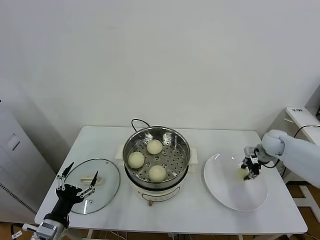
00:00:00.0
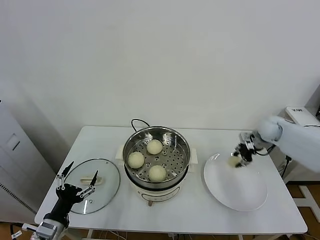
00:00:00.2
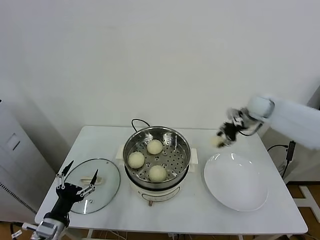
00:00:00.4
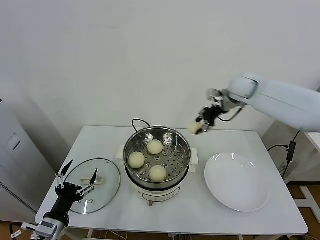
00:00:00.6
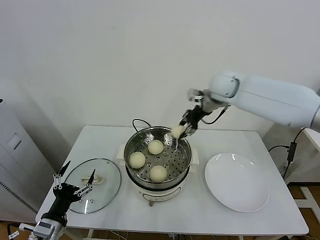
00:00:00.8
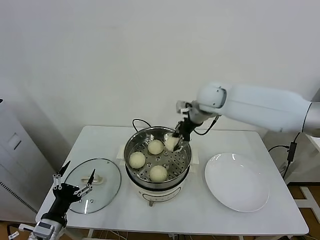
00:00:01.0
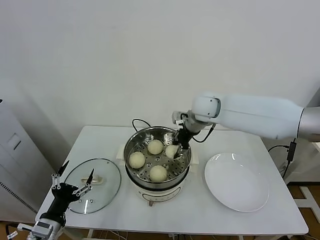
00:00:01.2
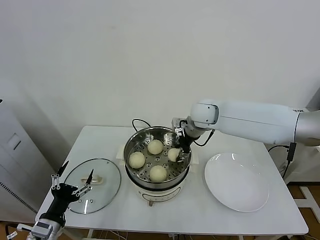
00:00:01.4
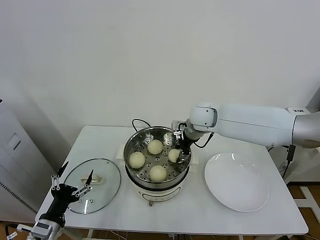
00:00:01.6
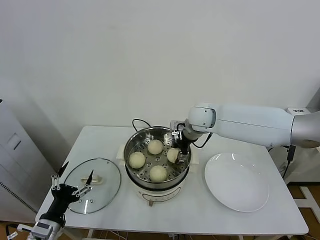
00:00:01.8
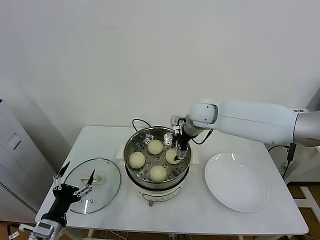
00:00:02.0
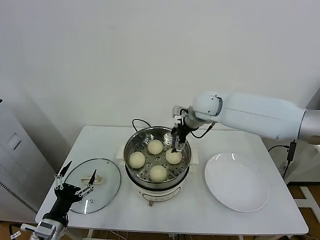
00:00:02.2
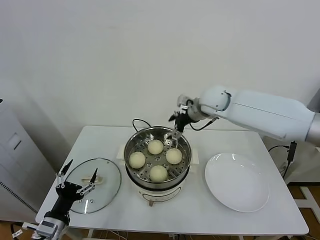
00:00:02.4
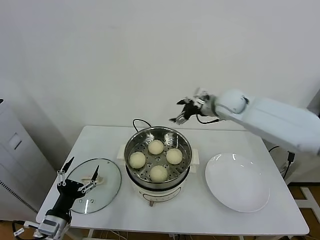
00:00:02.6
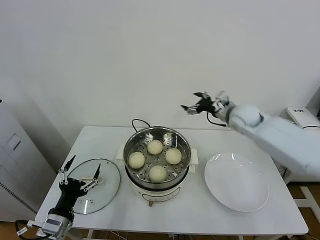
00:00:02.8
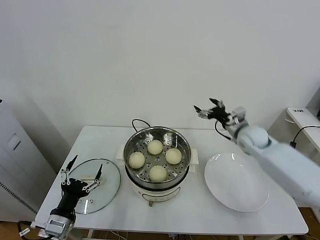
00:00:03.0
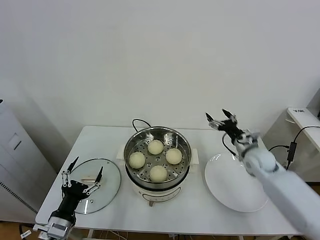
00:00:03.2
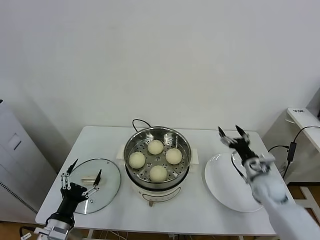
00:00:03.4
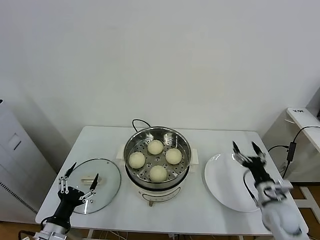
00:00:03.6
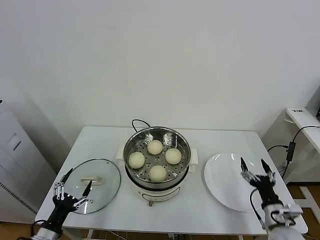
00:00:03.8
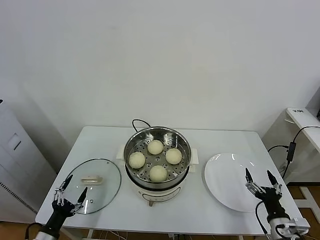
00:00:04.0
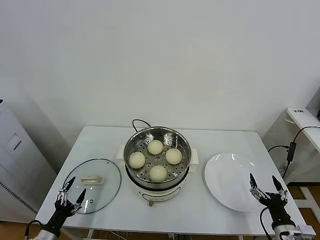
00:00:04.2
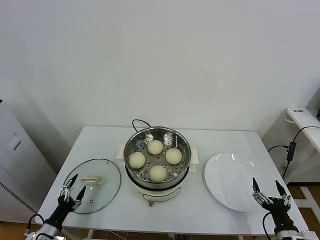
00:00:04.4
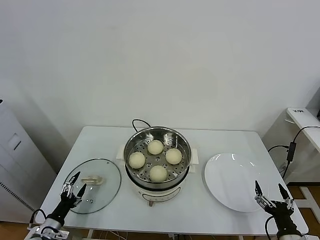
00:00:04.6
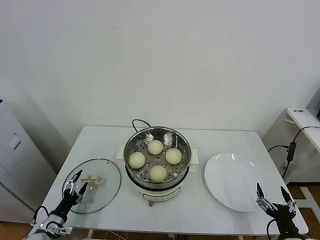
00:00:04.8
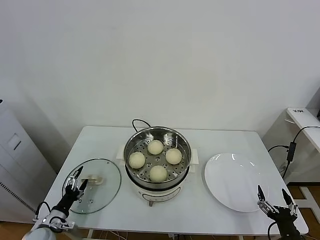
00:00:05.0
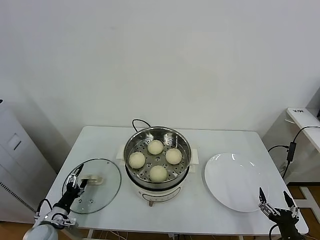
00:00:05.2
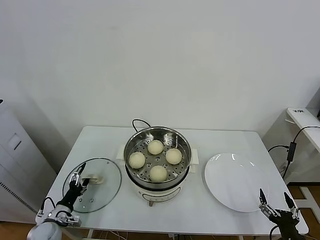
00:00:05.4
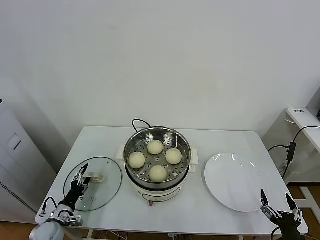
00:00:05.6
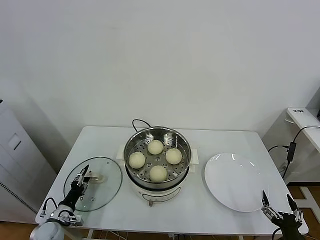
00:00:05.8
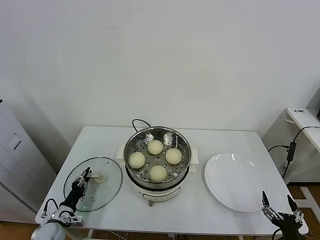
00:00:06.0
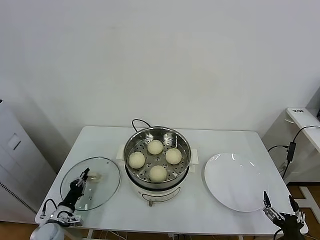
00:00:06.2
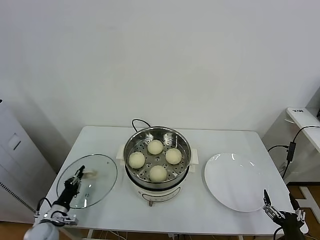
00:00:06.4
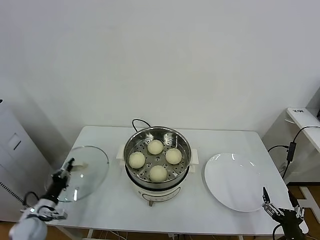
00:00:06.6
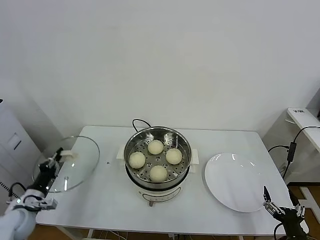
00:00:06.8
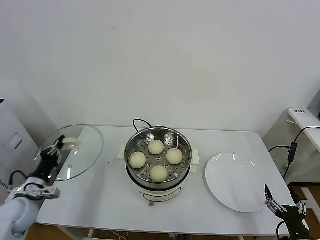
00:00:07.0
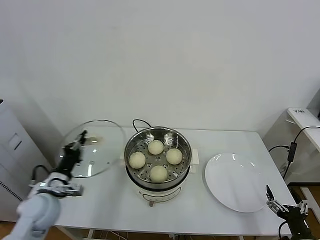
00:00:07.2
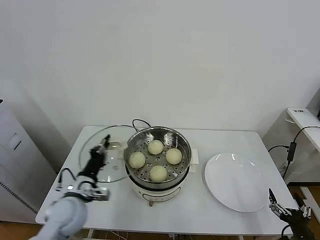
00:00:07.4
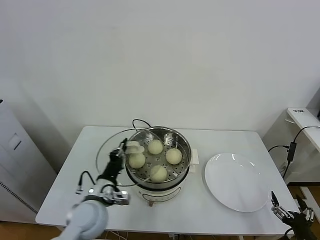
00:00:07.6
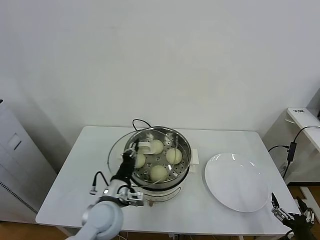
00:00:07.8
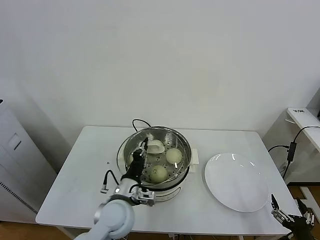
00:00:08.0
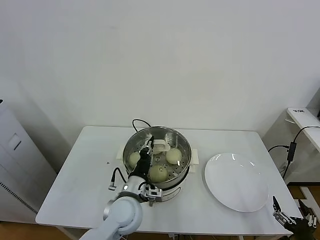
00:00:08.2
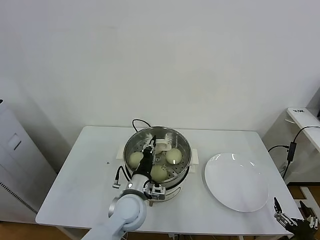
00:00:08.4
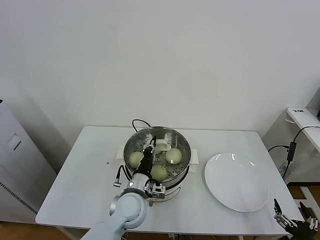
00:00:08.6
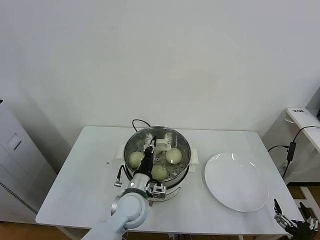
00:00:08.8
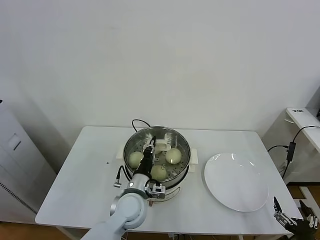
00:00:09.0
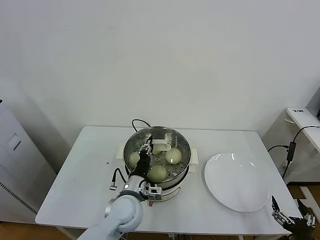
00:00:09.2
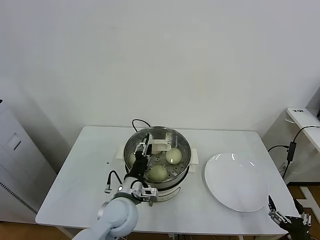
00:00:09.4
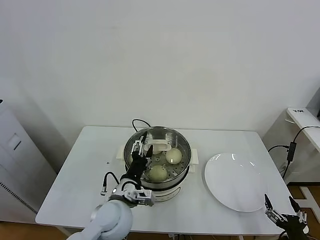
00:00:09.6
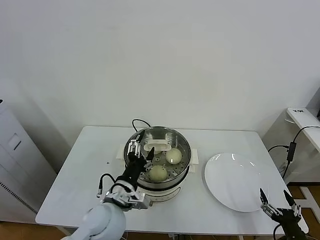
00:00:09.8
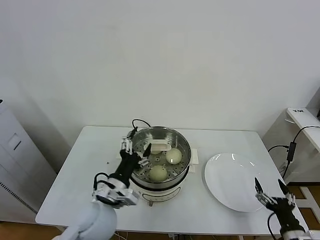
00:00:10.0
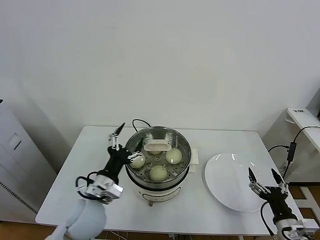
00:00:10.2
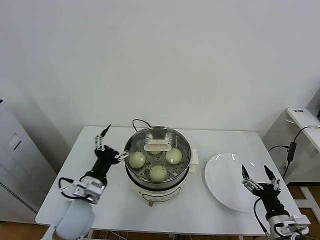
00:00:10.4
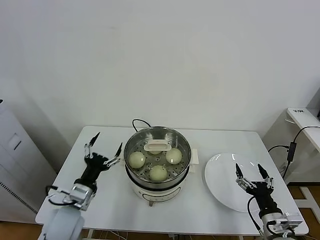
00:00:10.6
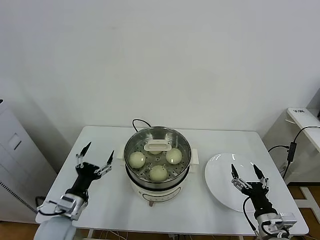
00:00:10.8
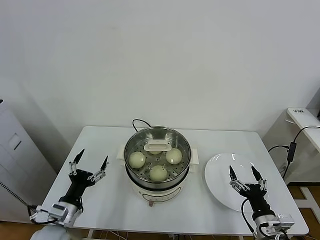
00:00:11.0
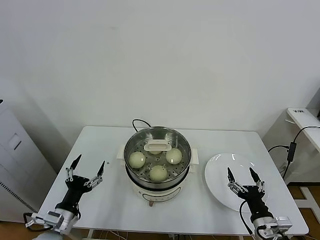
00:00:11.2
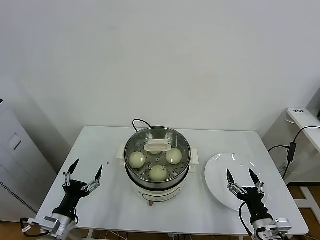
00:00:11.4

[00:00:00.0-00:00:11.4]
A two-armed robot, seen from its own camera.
Task of the whole recording: take steamed baozi put them in steamer.
Step, 00:00:00.0 to 00:00:02.0: Place the baozi on the steamer with right gripper.
Step, 00:00:02.2 to 00:00:06.2: Grasp the pot lid with left gripper.
Step, 00:00:06.4 to 00:00:09.4: Place the pot lid on the steamer with left gripper.
00:00:00.0 to 00:00:01.4: The right gripper heads to the left and upward, covering roughly 35 cm.
00:00:01.4 to 00:00:02.8: The right gripper heads to the right, covering about 15 cm, and opens.
00:00:02.8 to 00:00:04.2: The right gripper moves backward and downward, about 40 cm, while the left gripper goes about 15 cm downward and to the left.
00:00:04.2 to 00:00:05.6: The left gripper moves forward, about 10 cm. The right gripper moves backward, some 5 cm.
00:00:05.6 to 00:00:07.2: The left gripper is displaced upward by some 20 cm, and closes its fingers.
00:00:07.2 to 00:00:08.6: The left gripper heads to the right, covering approximately 25 cm.
00:00:08.6 to 00:00:10.0: The left gripper goes about 10 cm to the left, upward and backward, and opens its fingers. Meanwhile the right gripper is displaced forward by roughly 5 cm.
00:00:10.0 to 00:00:11.4: The right gripper heads to the left, covering some 5 cm. The left gripper is displaced to the left and downward by approximately 20 cm.

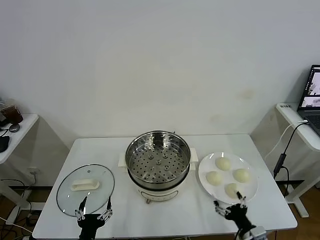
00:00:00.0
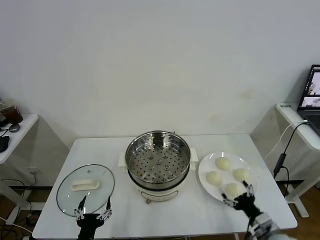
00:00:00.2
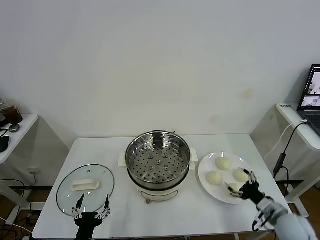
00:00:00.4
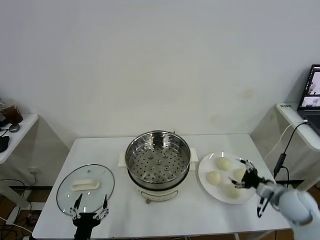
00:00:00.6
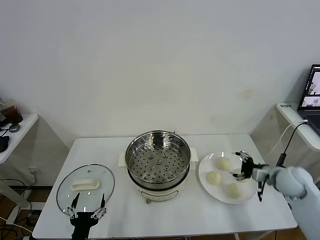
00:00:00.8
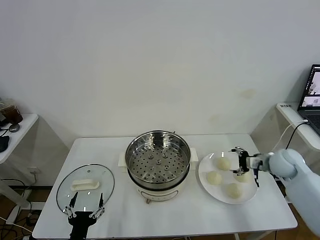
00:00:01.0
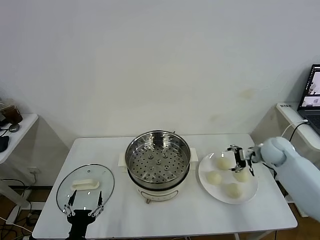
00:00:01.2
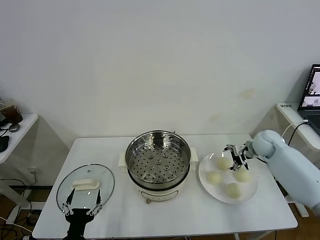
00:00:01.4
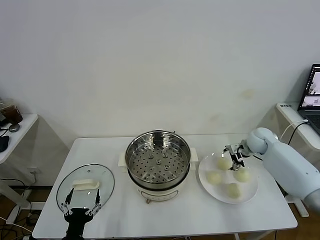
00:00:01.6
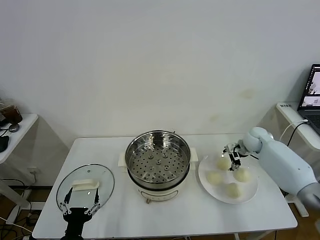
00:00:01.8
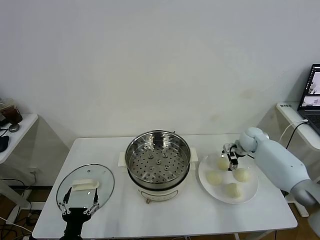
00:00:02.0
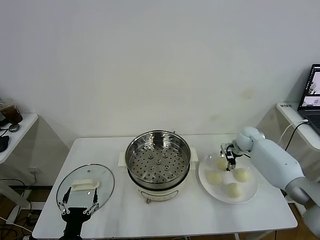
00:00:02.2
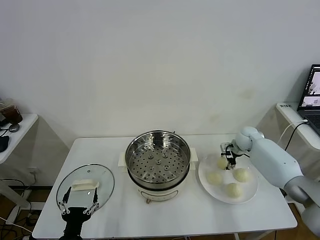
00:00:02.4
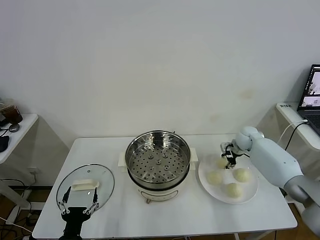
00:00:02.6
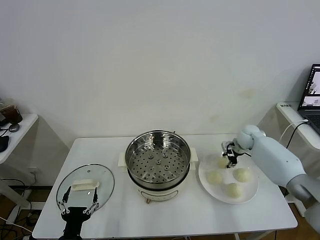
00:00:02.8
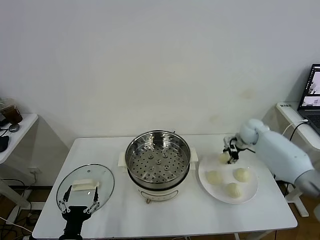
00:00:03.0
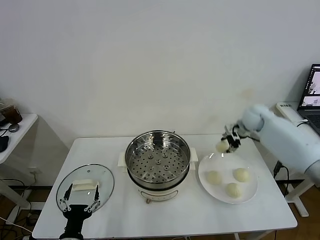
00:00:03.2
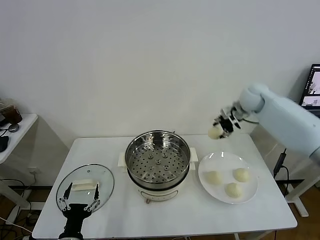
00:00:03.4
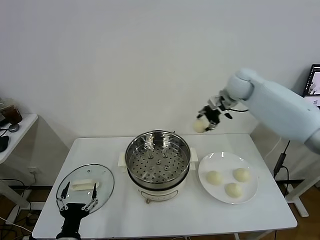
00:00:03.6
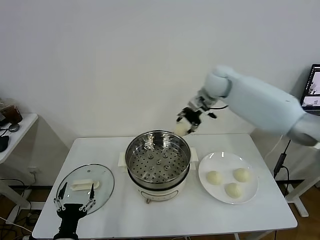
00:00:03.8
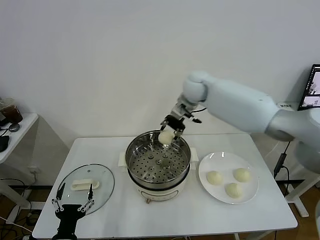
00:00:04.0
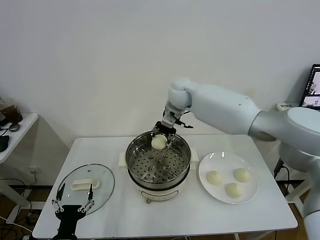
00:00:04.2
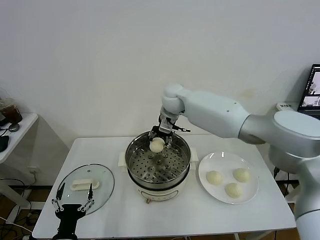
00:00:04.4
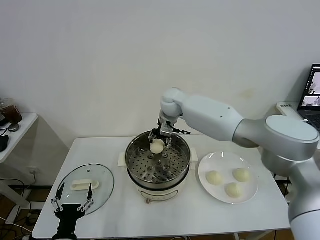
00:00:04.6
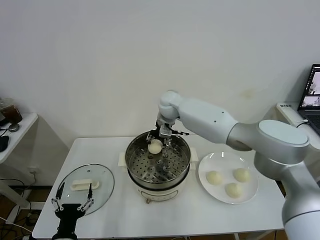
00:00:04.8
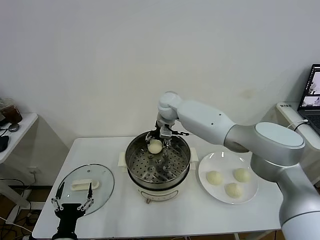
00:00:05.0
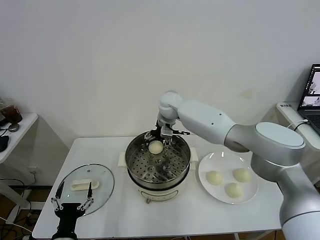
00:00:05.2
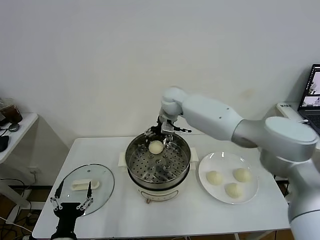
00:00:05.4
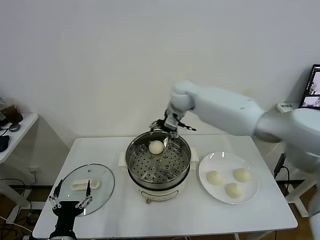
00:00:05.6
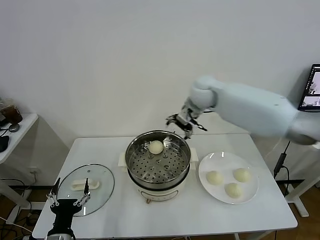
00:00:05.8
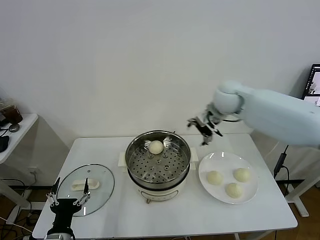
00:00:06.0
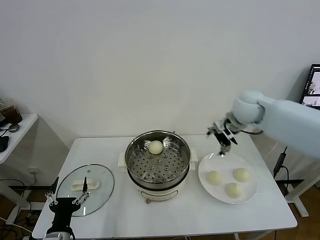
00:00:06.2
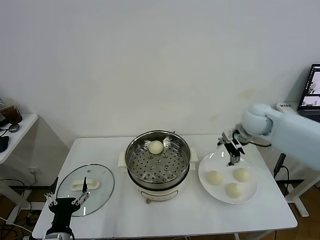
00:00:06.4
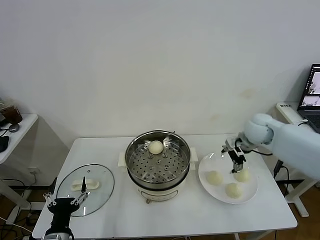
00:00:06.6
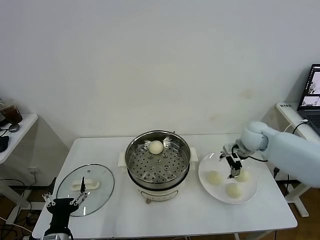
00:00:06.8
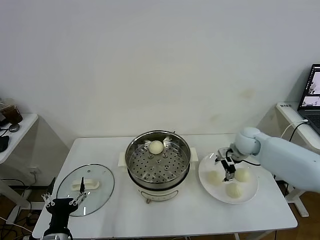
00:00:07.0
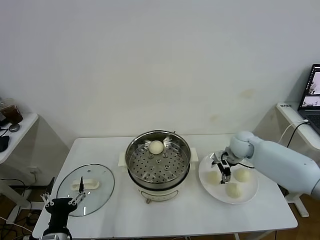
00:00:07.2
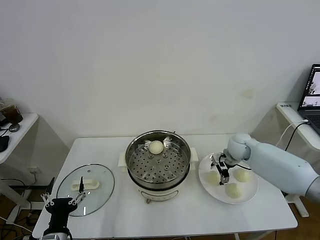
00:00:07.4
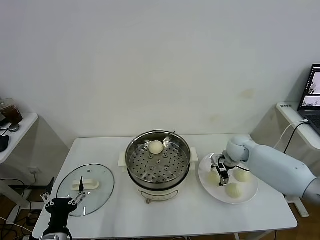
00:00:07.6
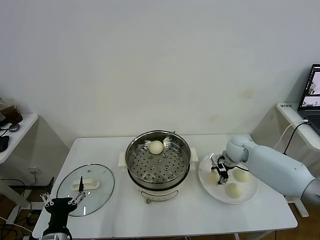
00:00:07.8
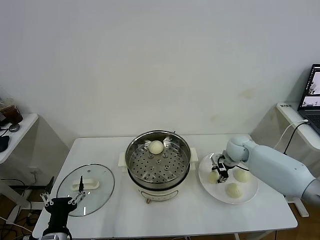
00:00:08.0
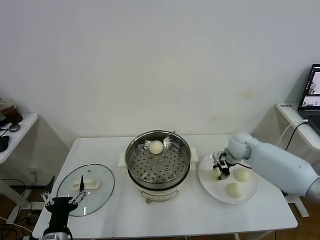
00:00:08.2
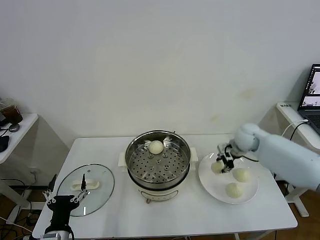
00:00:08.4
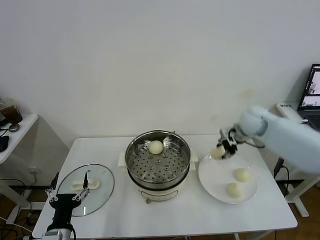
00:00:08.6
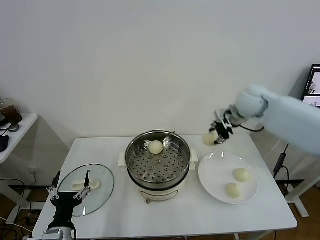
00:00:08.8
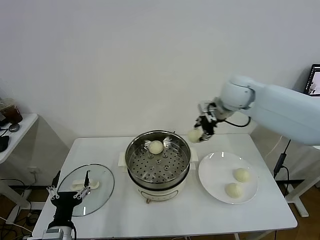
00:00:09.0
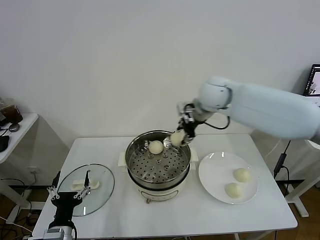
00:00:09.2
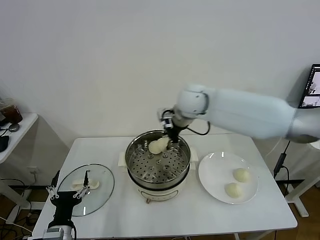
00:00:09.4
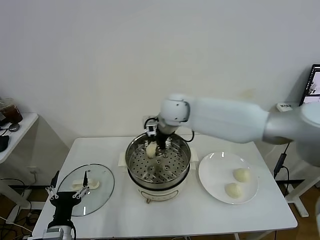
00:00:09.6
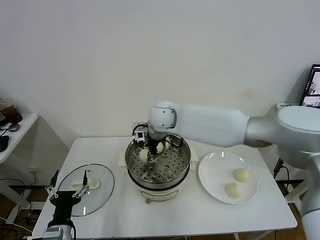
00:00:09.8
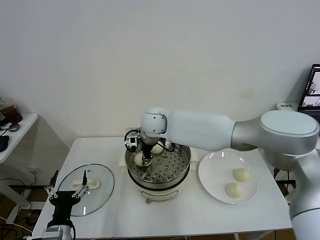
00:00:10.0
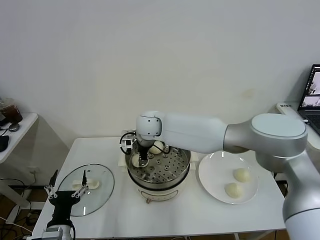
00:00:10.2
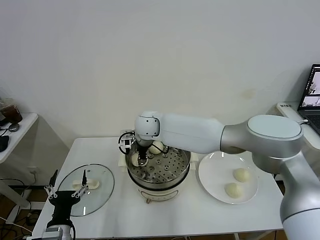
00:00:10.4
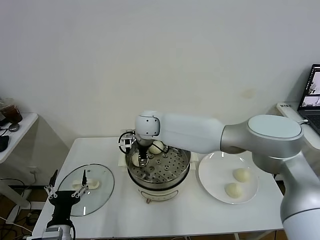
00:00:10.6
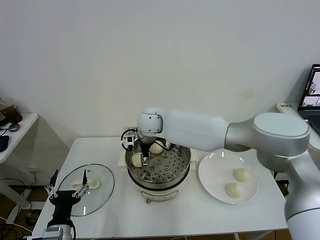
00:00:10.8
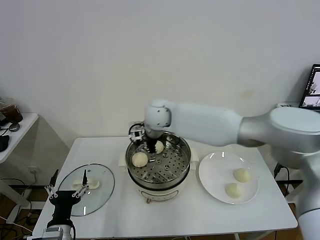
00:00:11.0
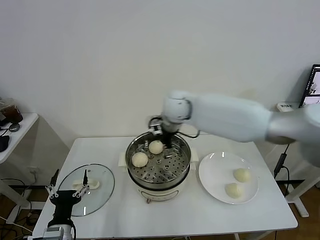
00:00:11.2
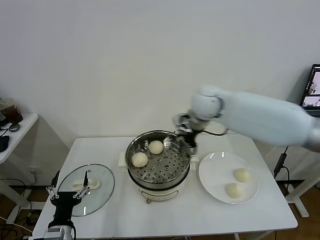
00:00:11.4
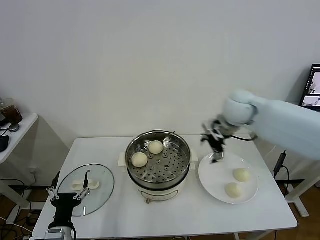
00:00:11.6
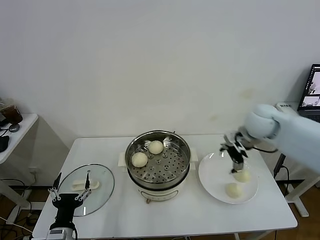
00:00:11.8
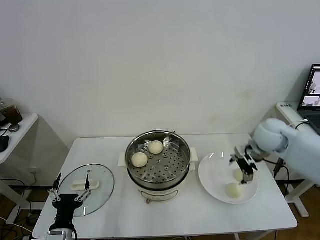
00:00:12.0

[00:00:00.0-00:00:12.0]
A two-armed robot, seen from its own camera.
Task of the whole recording: take steamed baozi put them in steamer.
Step, 00:00:00.0 to 00:00:02.6: Grasp the baozi in the plate with right gripper.
Step, 00:00:02.8 to 00:00:05.4: Place the baozi on the steamer with right gripper.
Step, 00:00:05.6 to 00:00:08.0: Grasp the baozi in the plate with right gripper.
Step, 00:00:08.2 to 00:00:10.8: Place the baozi on the steamer with right gripper.
00:00:01.6 to 00:00:03.0: The right gripper closes its fingers.
00:00:03.0 to 00:00:04.4: The right gripper heads to the left and upward, covering roughly 35 cm.
00:00:04.4 to 00:00:06.0: The right gripper heads to the right, covering approximately 15 cm, and opens.
00:00:06.0 to 00:00:07.6: The right gripper heads downward, covering roughly 20 cm.
00:00:07.6 to 00:00:09.0: The right gripper goes about 25 cm upward, and closes its fingers.
00:00:09.0 to 00:00:10.4: The right gripper travels to the left and downward by approximately 30 cm.
00:00:10.4 to 00:00:12.0: The right gripper moves to the right, about 40 cm, and opens.
